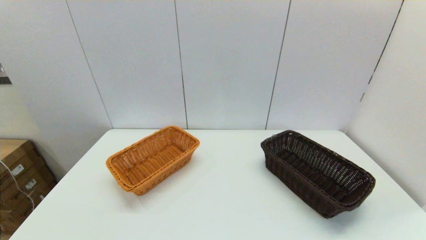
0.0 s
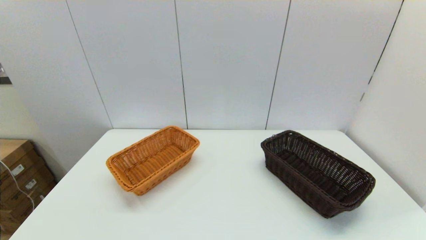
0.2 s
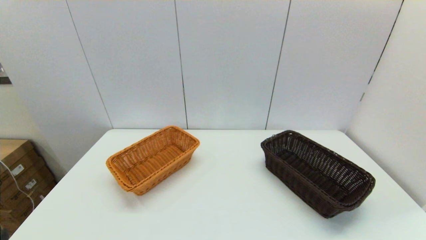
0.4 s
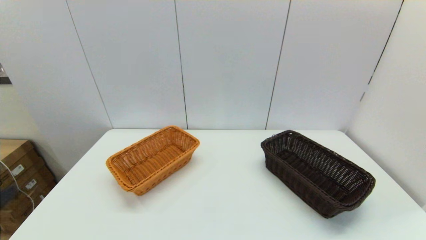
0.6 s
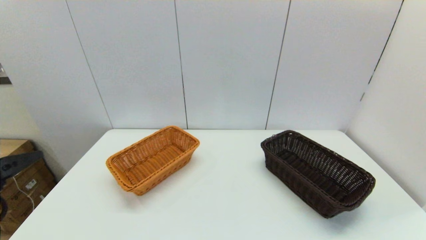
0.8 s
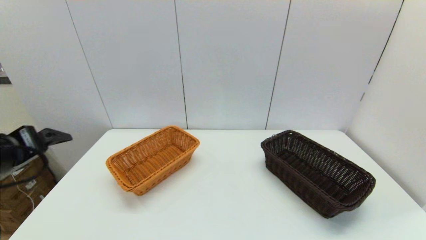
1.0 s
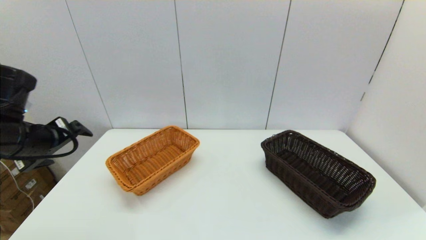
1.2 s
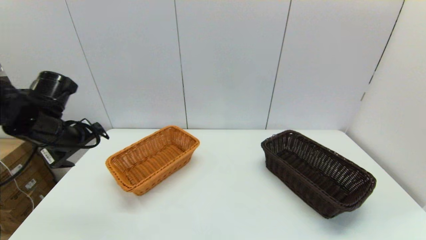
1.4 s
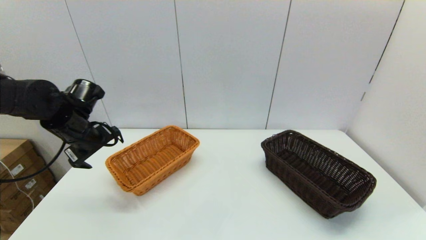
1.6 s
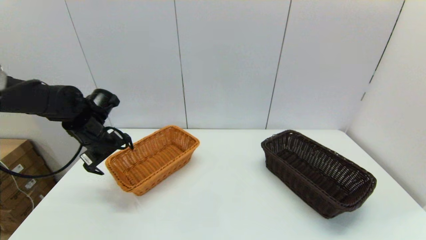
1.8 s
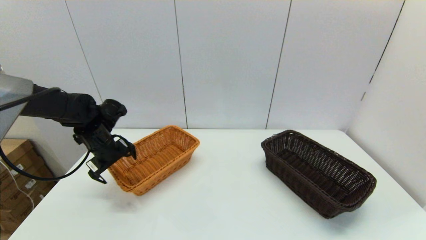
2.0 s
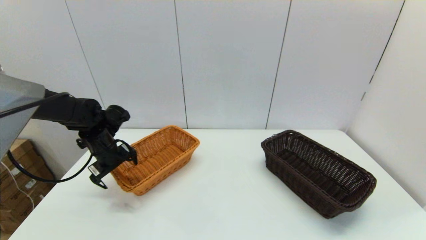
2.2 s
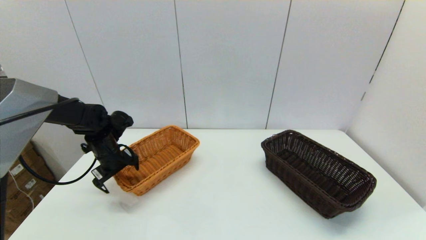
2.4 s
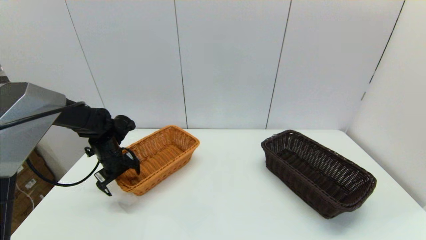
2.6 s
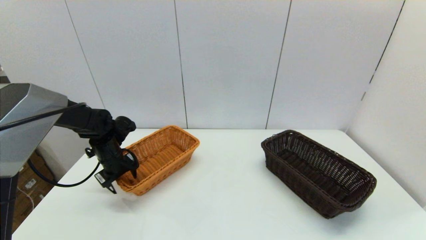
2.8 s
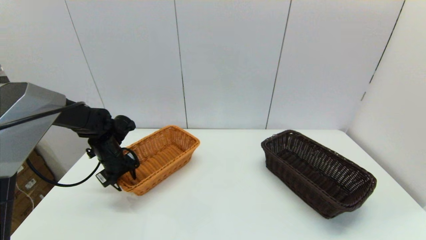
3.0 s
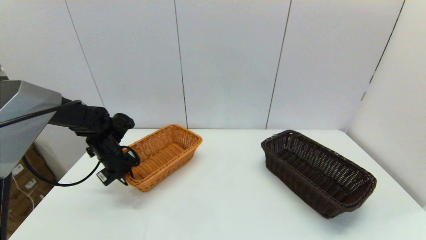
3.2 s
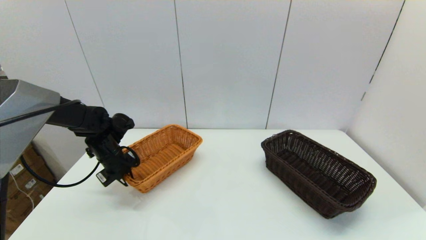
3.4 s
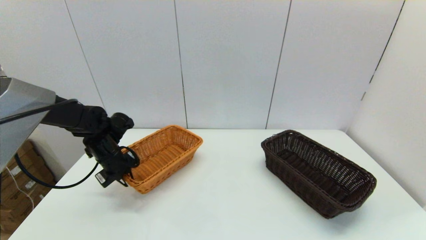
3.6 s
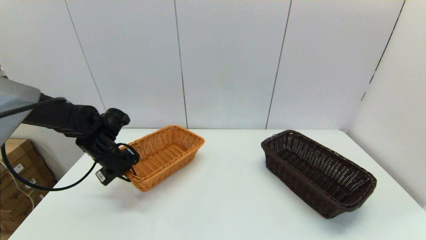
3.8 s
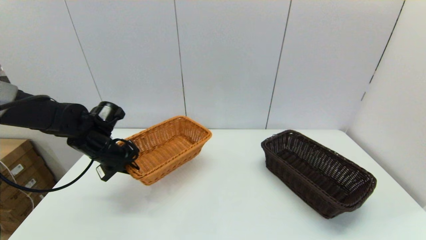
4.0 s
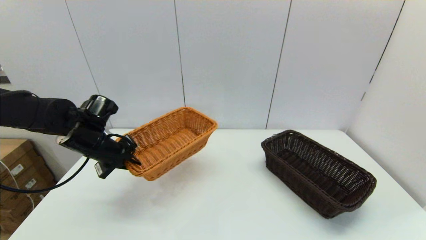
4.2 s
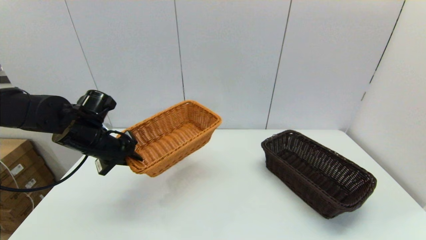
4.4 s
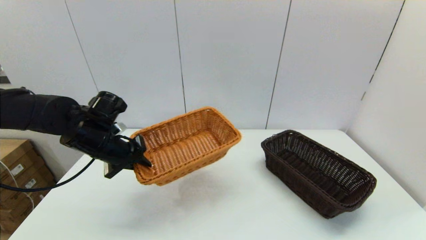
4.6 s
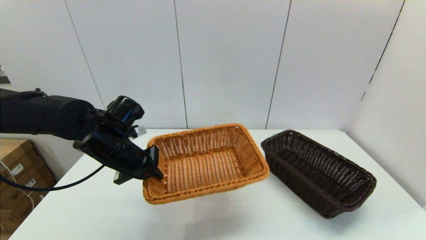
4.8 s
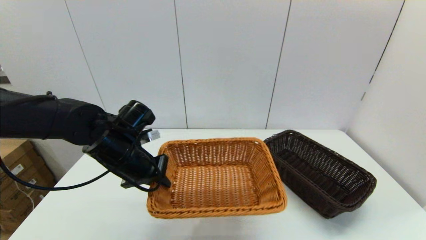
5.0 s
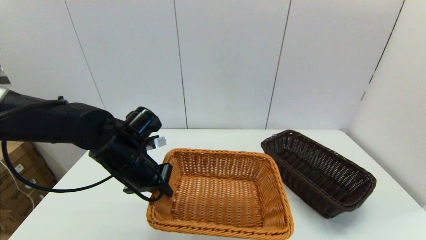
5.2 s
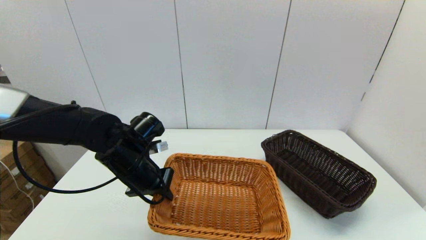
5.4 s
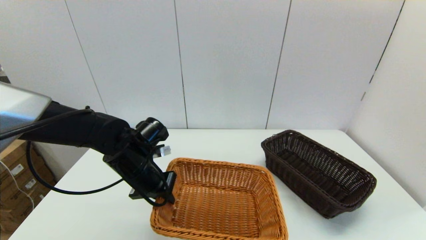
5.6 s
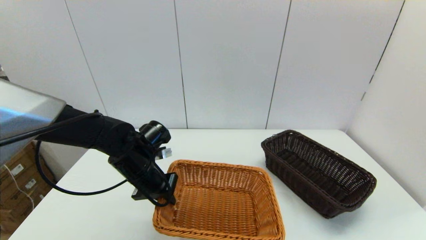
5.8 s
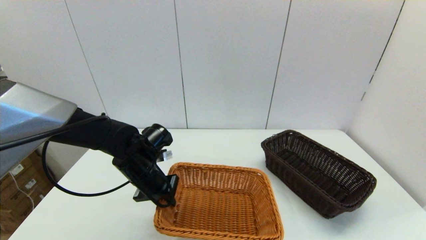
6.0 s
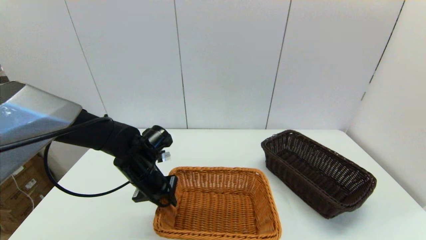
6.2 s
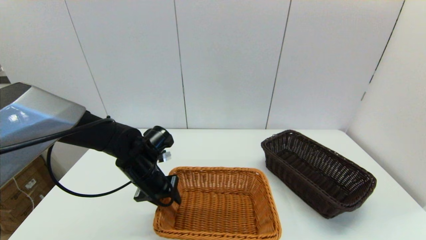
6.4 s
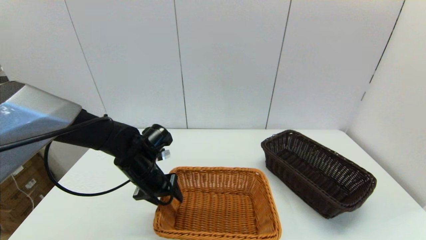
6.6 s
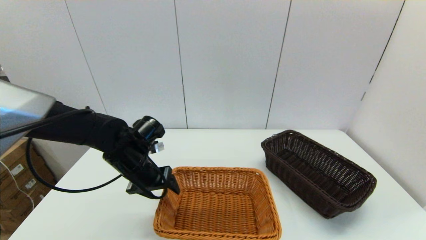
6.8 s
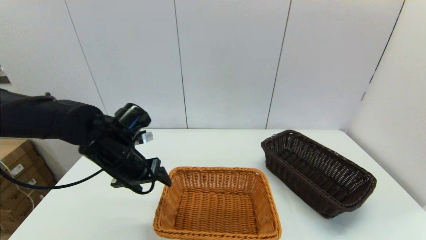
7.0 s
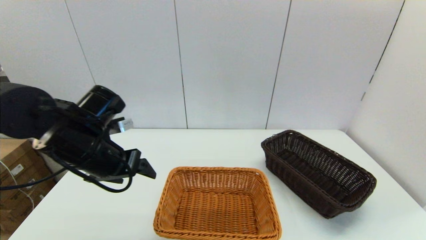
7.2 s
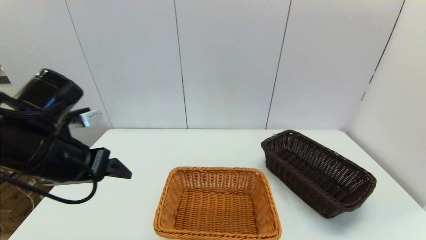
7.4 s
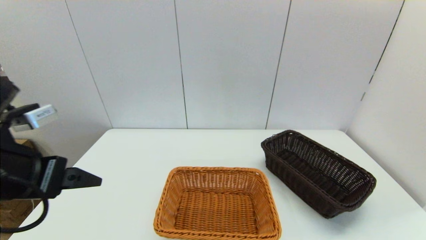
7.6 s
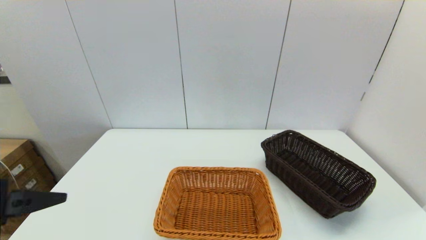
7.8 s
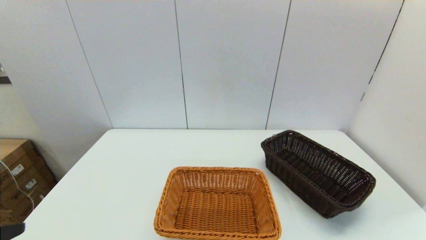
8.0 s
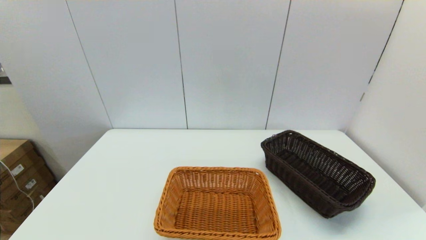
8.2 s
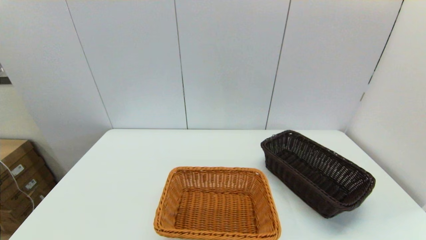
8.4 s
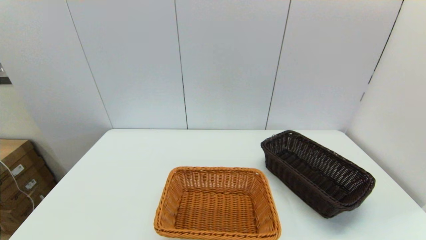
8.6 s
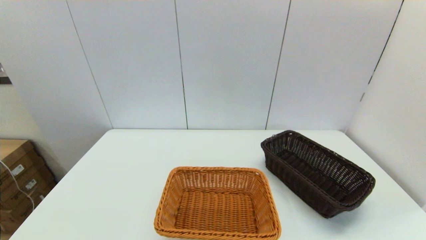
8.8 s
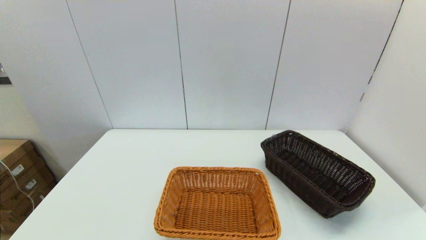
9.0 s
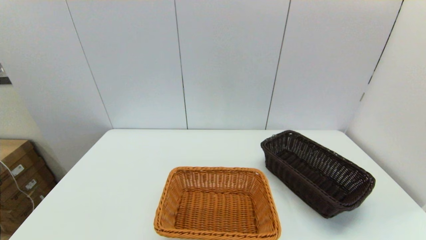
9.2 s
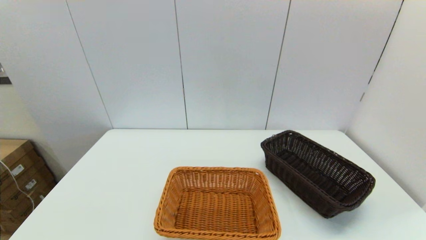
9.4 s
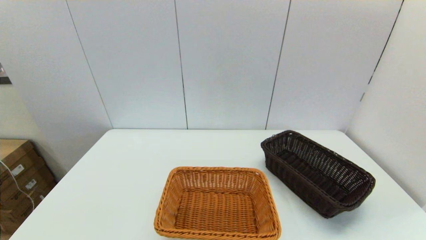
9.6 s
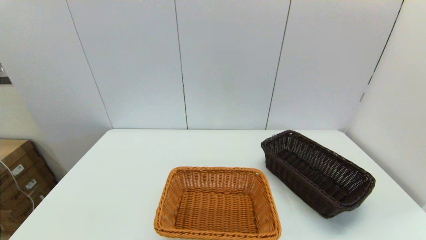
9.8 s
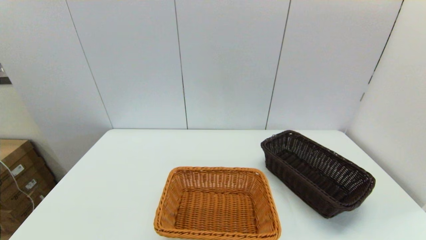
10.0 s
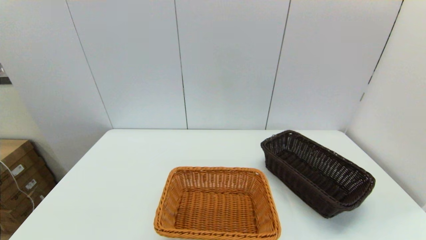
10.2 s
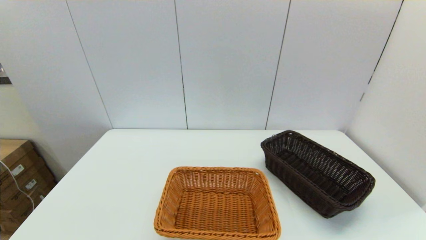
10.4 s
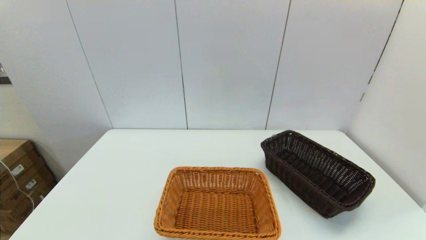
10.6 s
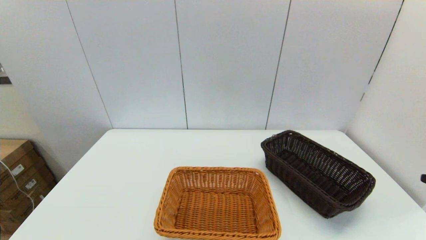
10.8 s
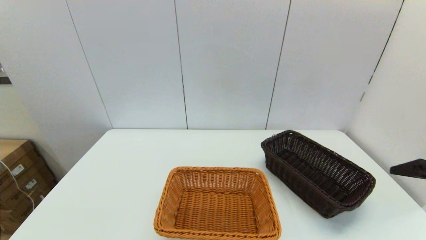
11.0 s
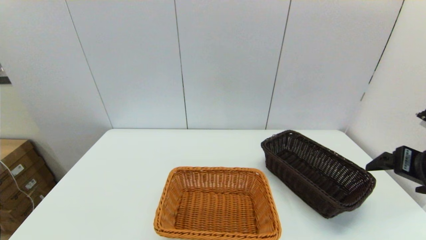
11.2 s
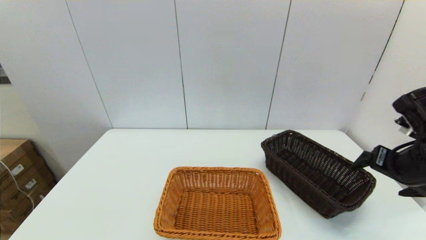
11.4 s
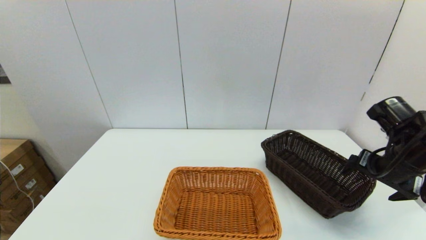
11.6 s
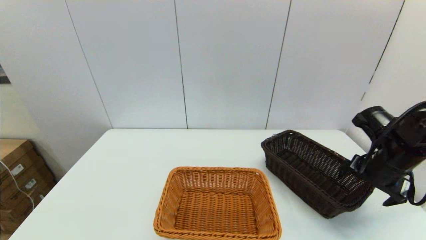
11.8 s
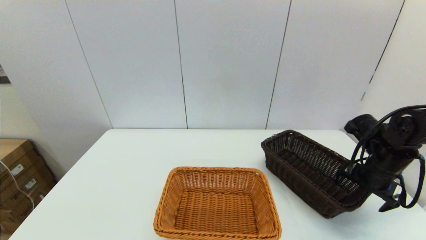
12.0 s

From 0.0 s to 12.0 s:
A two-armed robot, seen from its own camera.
Task of the whole recording: stack a basket on top of another basket.
Step, from 0.0 s to 3.2 s: Grasp the light basket with the left gripper.
Step, from 3.4 s to 7.2 s: Place the light basket on the middle of the table with the left gripper.
From 0.0 s to 1.6 s: The left gripper shifts about 35 cm forward.
From 1.6 s to 3.0 s: The left gripper shifts approximately 10 cm downward, and closes its fingers.
From 3.0 s to 4.4 s: The left gripper goes roughly 10 cm upward and backward, and closes up.
From 4.4 s to 6.0 s: The left gripper moves to the right and downward, about 10 cm.
From 6.0 s to 7.6 s: The left gripper shifts roughly 25 cm upward, backward and to the left, and opens up.
From 7.6 s to 9.0 s: The left gripper moves backward and downward, approximately 25 cm.
From 10.4 s to 12.0 s: The right gripper is displaced forward by about 30 cm.

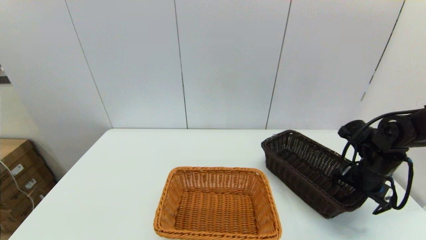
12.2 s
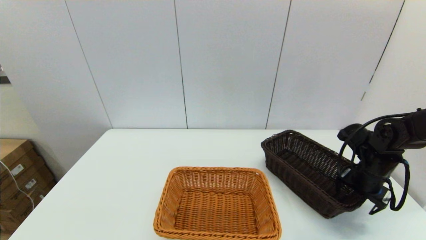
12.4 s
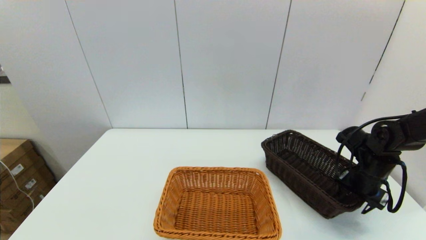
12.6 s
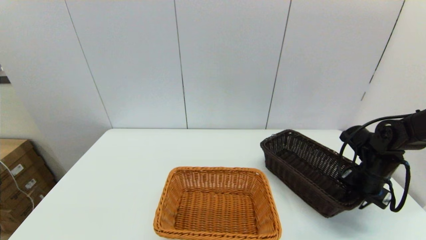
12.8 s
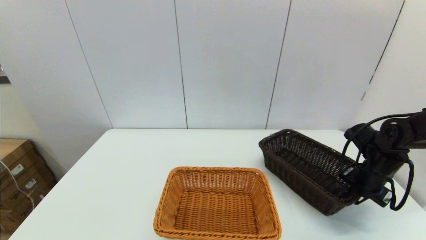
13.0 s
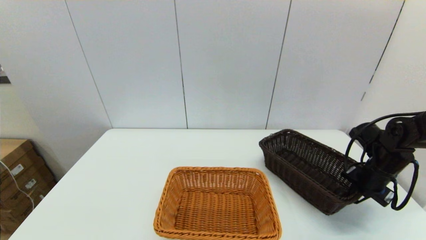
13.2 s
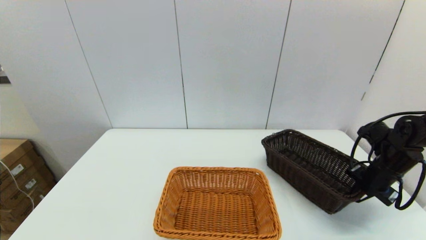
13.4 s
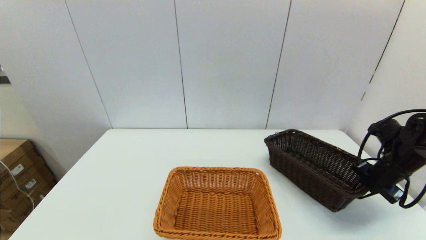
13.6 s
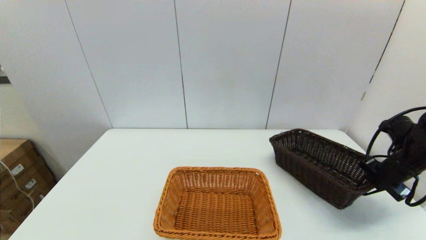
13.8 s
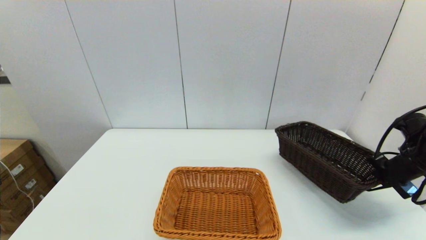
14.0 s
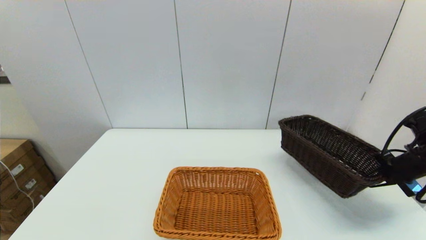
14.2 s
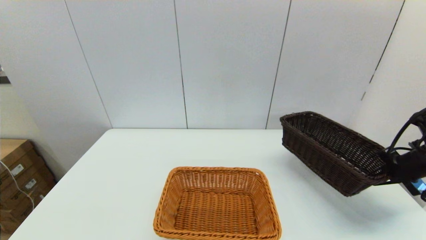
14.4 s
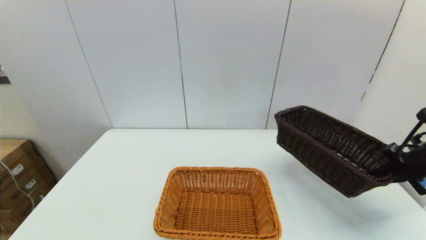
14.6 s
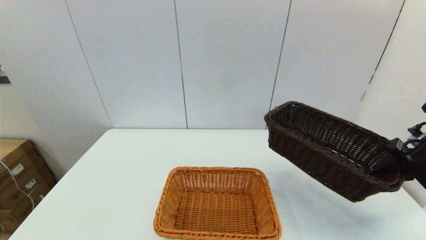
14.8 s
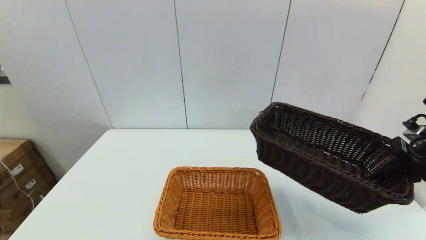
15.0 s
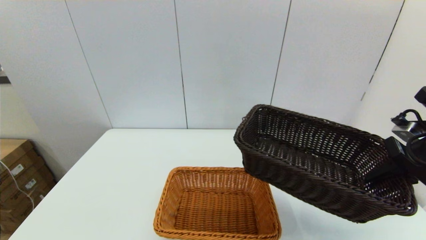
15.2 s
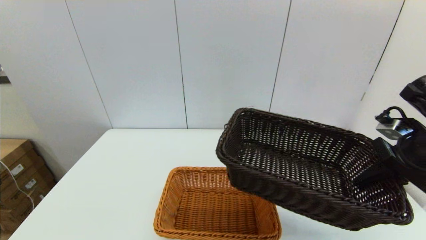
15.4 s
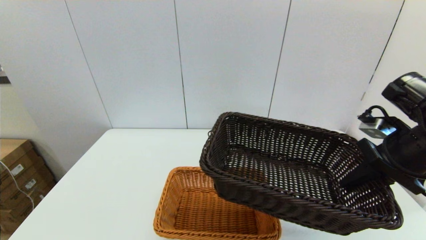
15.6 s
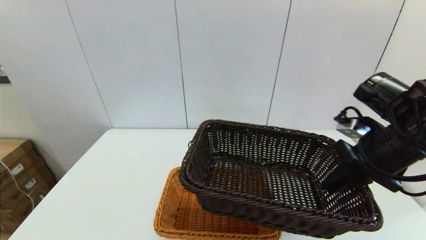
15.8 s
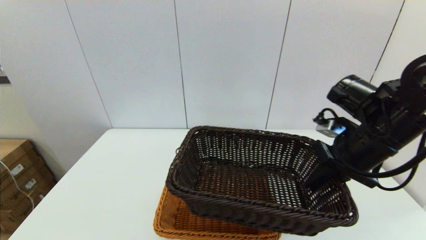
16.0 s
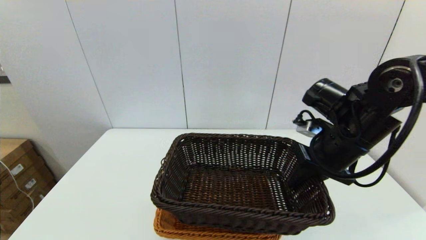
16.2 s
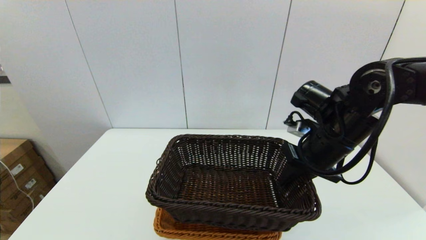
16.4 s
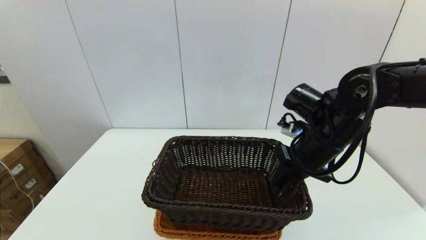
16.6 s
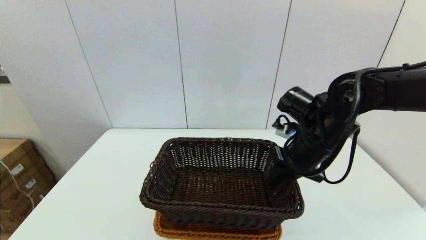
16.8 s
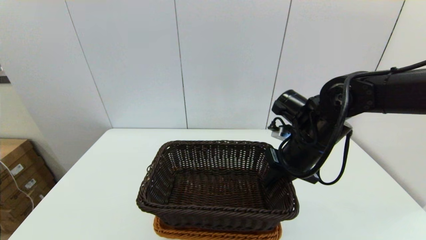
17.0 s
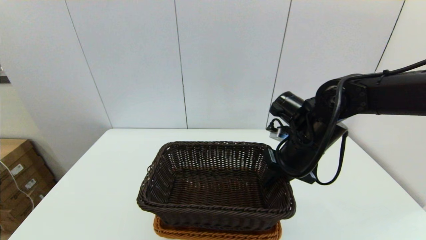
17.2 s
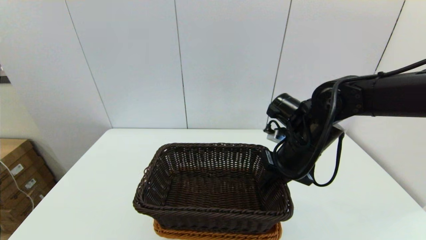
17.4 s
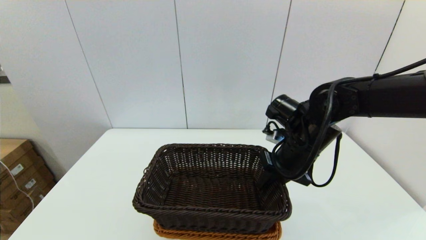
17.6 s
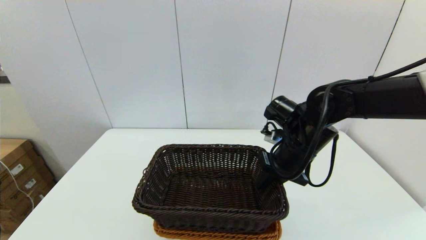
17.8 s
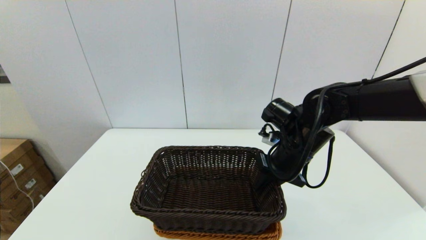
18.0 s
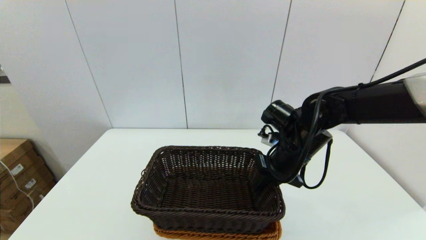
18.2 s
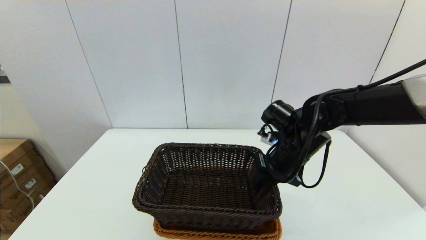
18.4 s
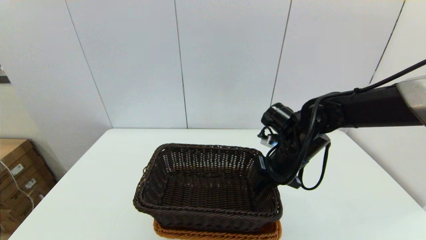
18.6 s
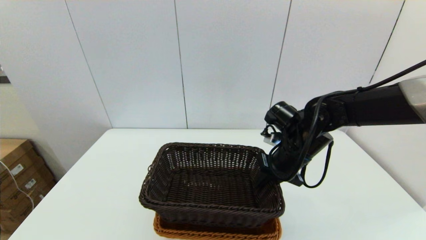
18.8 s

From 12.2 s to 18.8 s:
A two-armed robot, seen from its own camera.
Task of the whole recording: stack a basket on top of another basket.
From 12.2 s to 13.8 s: The right gripper travels to the right by about 5 cm, and closes up.
From 13.8 s to 15.4 s: The right gripper travels upward, to the left and backward by roughly 15 cm.
From 15.4 s to 17.2 s: The right gripper heads to the left and forward, covering some 15 cm.
From 17.2 s to 18.8 s: There are only small adjustments of the grippers.
